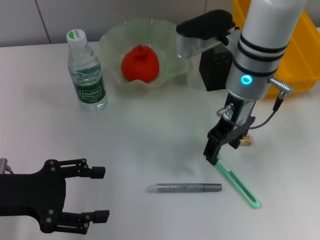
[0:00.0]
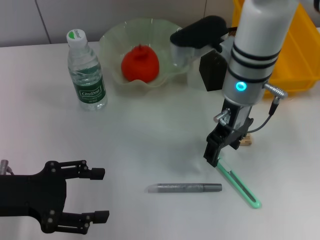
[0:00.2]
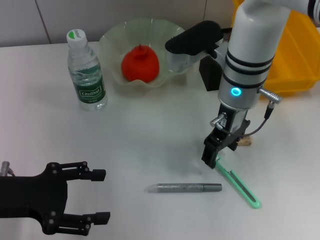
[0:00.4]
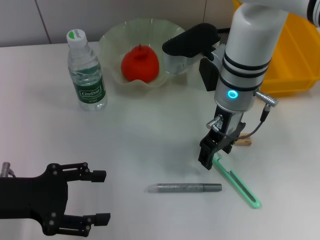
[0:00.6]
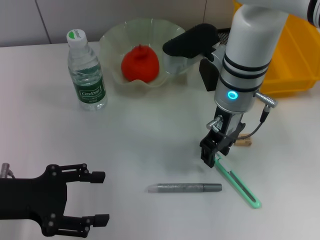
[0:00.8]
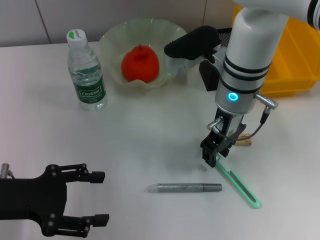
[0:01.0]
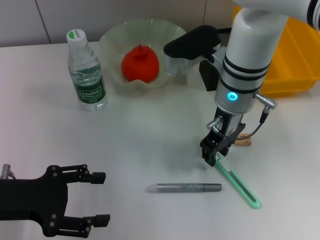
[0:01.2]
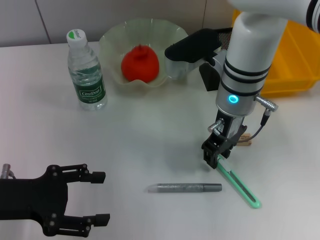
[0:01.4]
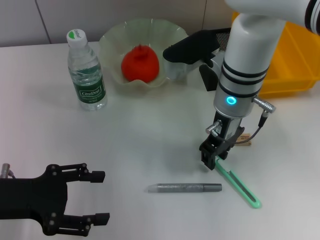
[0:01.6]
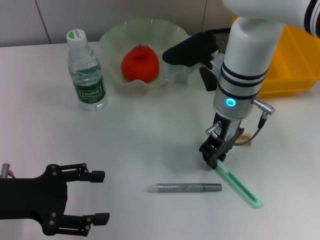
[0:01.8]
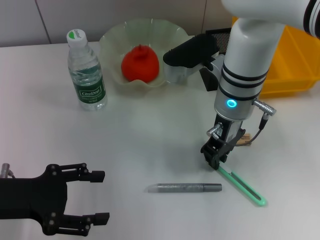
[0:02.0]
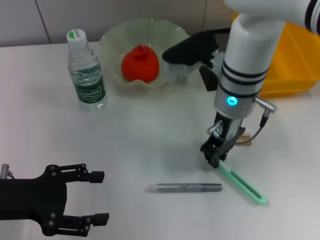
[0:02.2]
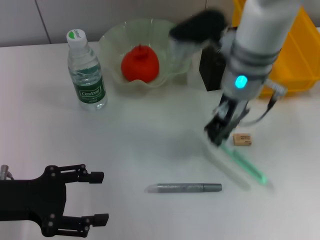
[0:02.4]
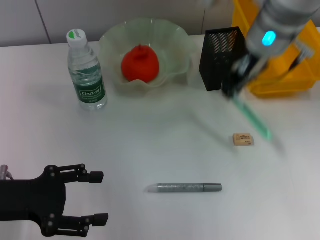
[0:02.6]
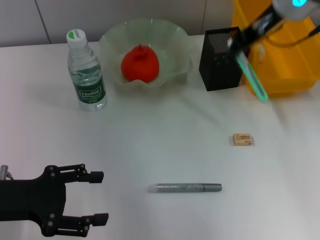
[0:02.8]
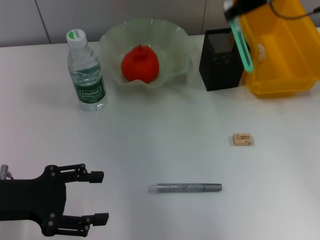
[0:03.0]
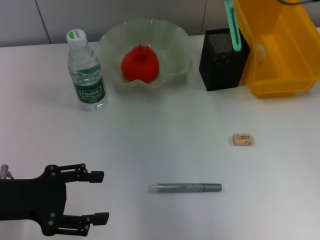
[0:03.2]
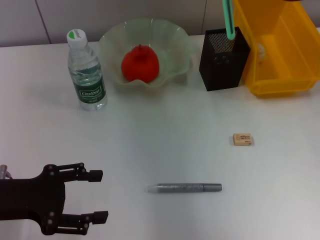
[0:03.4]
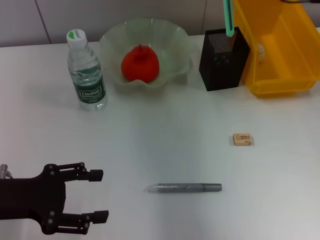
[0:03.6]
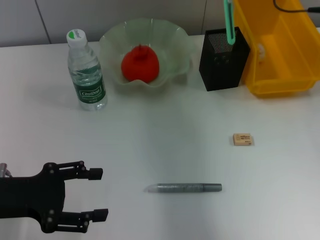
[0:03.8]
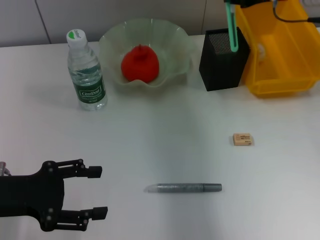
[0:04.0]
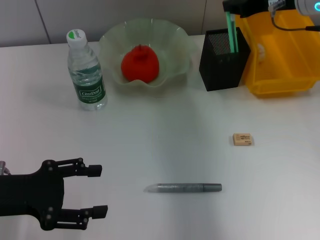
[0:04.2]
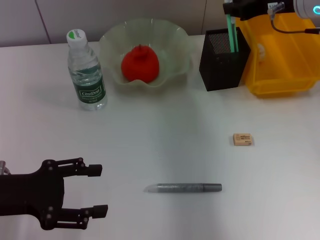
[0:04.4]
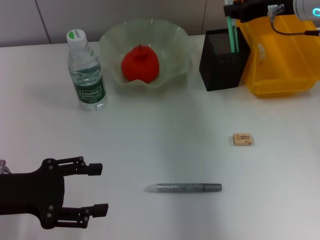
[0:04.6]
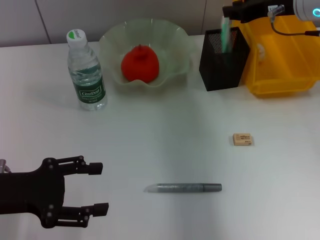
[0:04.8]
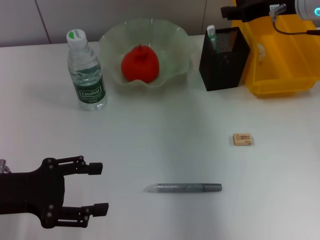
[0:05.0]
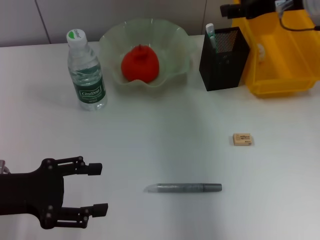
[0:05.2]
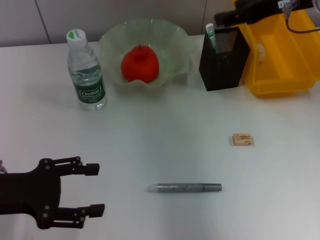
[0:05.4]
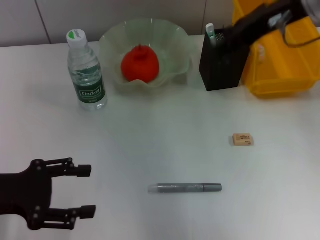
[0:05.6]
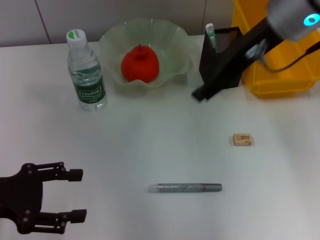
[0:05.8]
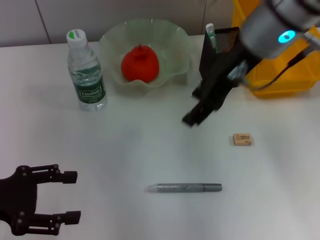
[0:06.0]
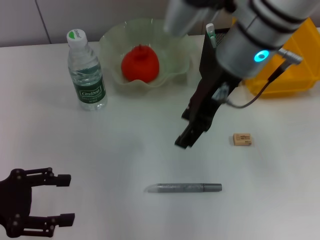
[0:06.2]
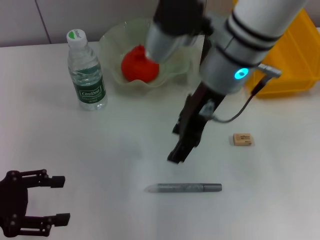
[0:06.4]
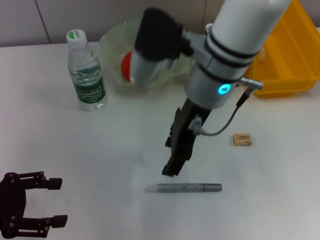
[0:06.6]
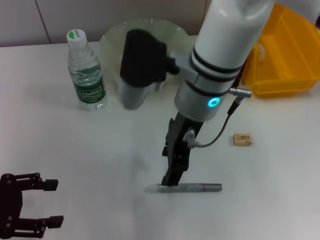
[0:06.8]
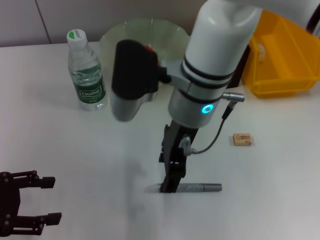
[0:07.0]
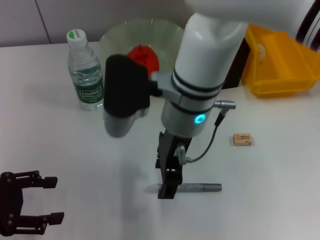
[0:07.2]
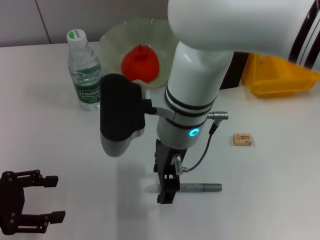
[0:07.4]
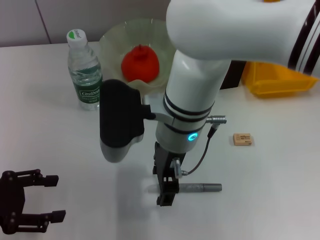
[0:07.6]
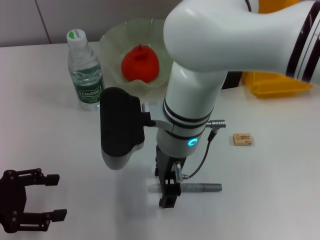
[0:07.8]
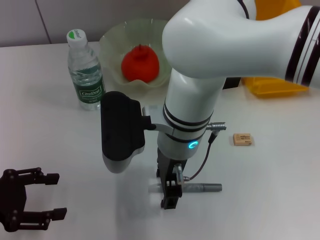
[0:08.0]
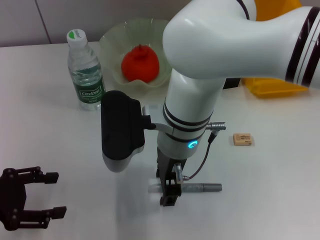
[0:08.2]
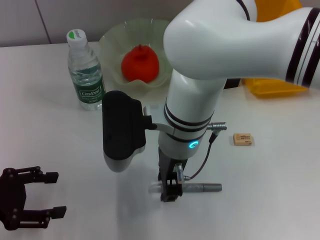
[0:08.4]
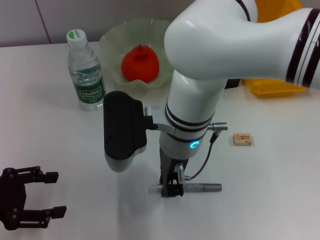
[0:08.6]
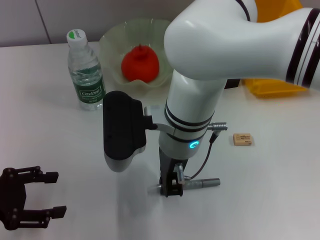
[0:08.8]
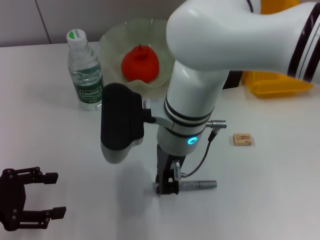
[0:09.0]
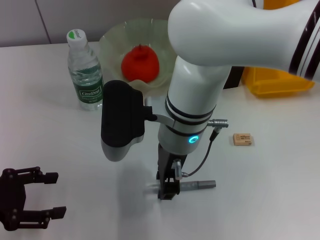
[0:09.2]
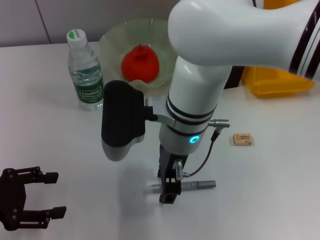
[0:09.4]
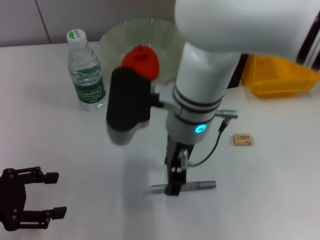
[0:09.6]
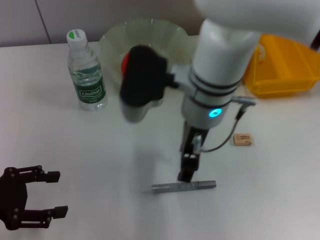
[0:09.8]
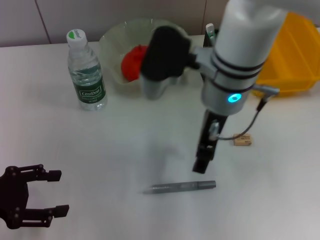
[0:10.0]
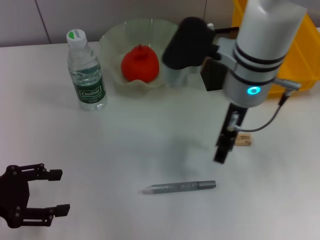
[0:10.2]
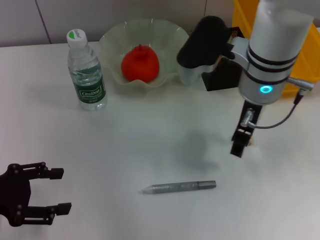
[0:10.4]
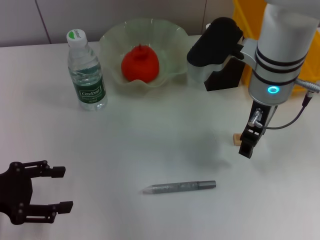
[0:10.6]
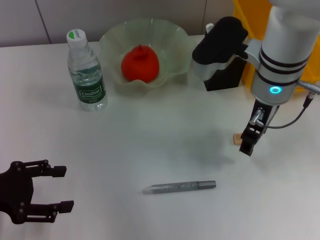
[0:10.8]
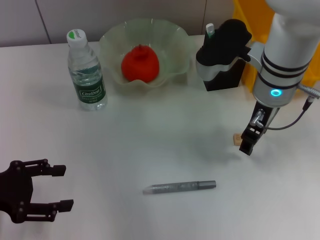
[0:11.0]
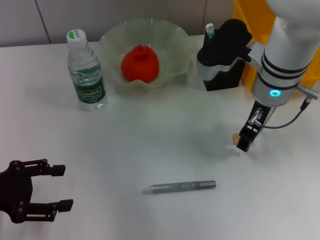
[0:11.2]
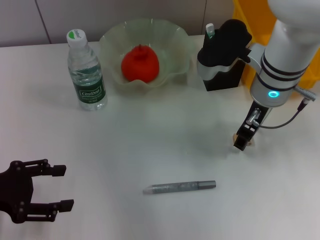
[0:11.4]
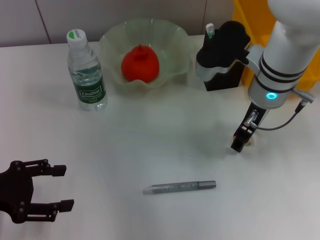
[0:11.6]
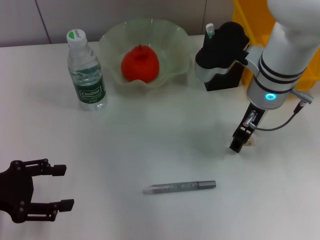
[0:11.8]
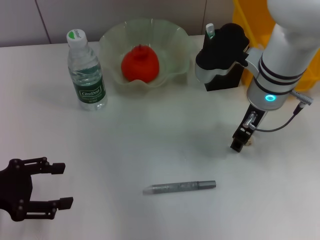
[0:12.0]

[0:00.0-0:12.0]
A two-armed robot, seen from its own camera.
Step, 0:00.0 to 0:02.0: Grab the blue utility knife with the right hand.
Step, 0:02.2 to 0:05.0: Place the blue utility knife into the pen holder with the right hand.
0:00.0 to 0:01.6: The right gripper closes up.
0:01.6 to 0:03.0: The right gripper heads upward and to the right, covering some 15 cm.
0:03.0 to 0:04.4: The right gripper goes about 5 cm downward.
0:04.4 to 0:06.0: The right gripper is displaced to the left and backward by some 15 cm, and opens up.
0:06.0 to 0:07.6: The right gripper moves to the left and downward, some 15 cm.
0:07.6 to 0:09.0: The right gripper closes its fingers.
0:09.0 to 0:10.4: The right gripper moves to the right, some 10 cm, and opens up.
0:10.4 to 0:12.0: The grippers move only a little.

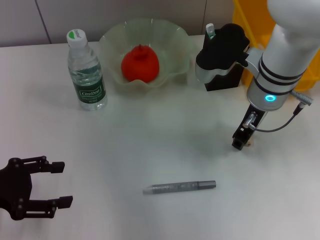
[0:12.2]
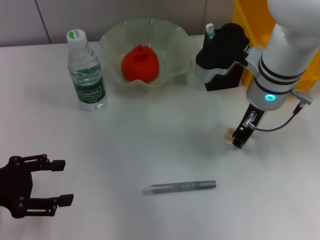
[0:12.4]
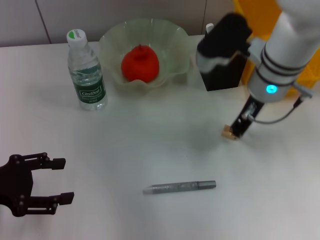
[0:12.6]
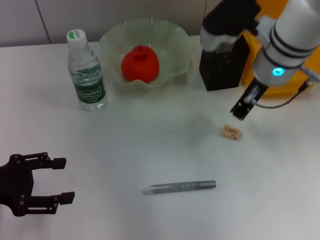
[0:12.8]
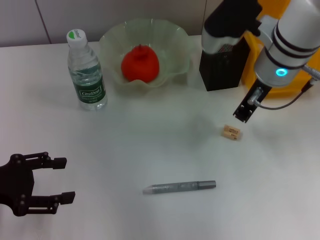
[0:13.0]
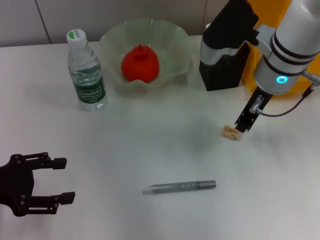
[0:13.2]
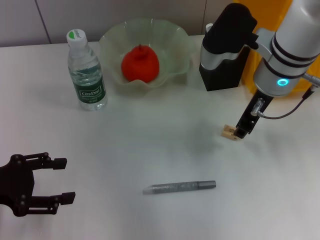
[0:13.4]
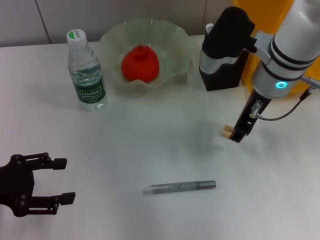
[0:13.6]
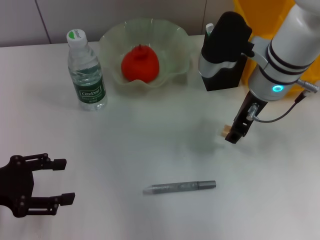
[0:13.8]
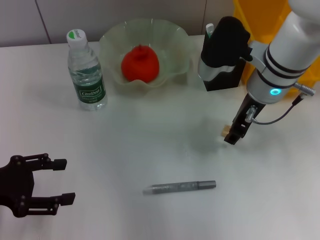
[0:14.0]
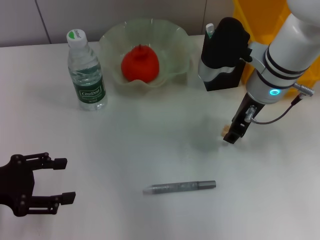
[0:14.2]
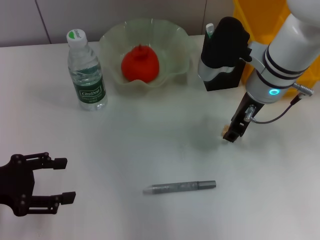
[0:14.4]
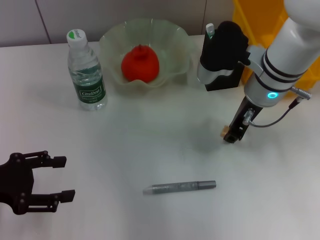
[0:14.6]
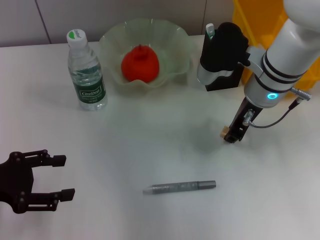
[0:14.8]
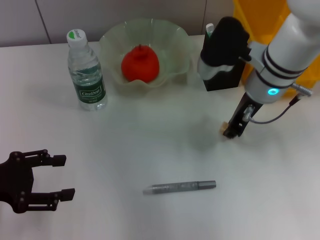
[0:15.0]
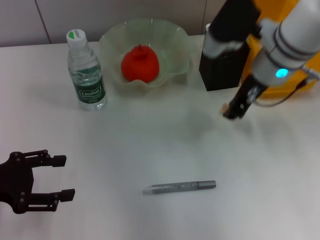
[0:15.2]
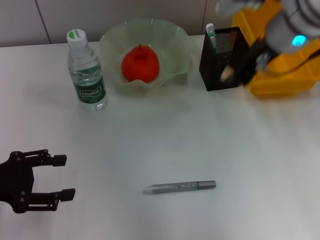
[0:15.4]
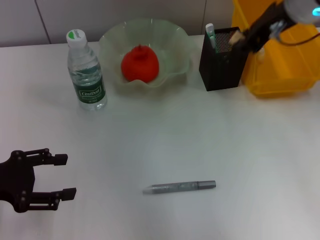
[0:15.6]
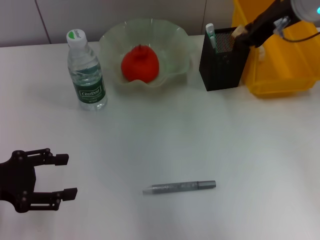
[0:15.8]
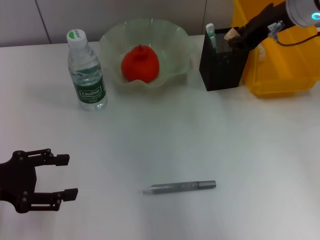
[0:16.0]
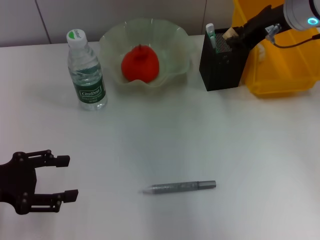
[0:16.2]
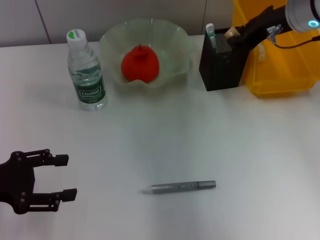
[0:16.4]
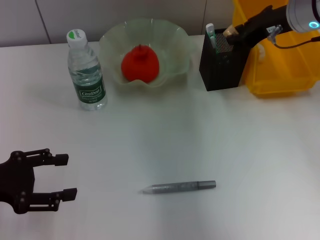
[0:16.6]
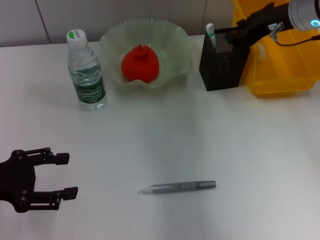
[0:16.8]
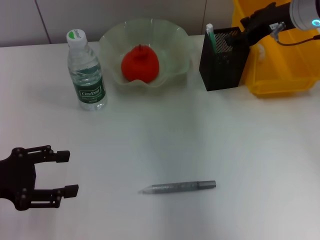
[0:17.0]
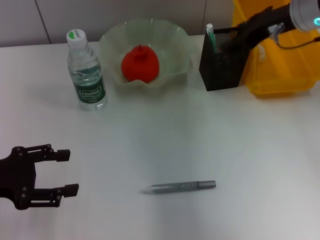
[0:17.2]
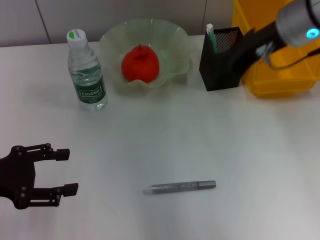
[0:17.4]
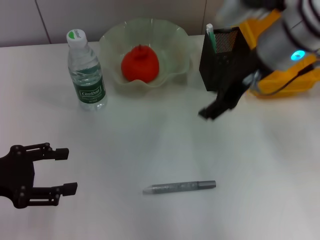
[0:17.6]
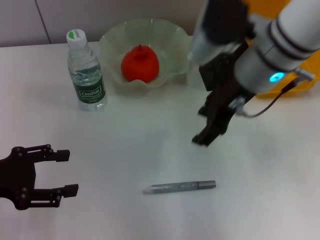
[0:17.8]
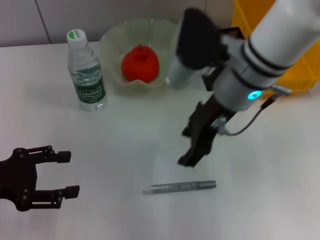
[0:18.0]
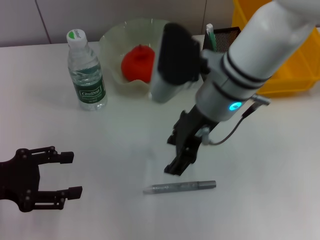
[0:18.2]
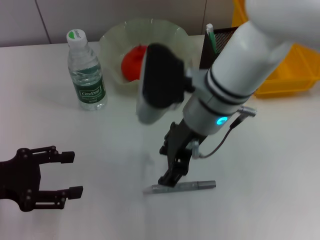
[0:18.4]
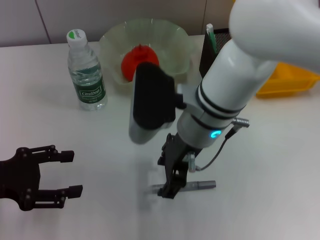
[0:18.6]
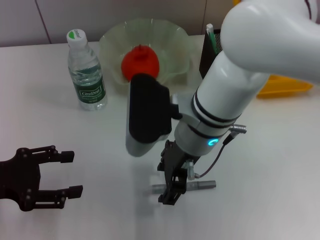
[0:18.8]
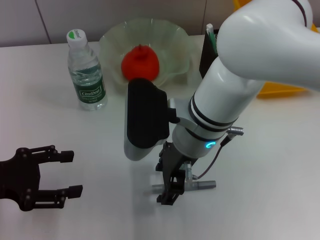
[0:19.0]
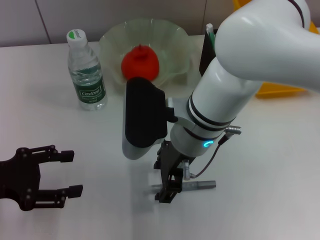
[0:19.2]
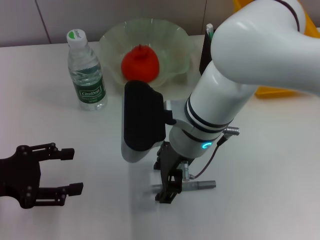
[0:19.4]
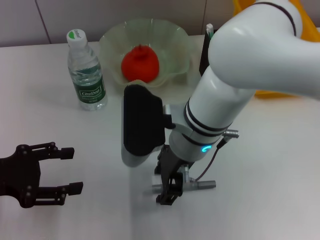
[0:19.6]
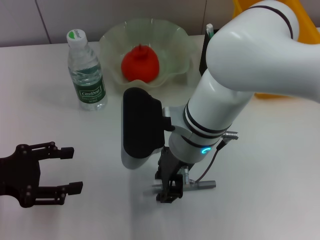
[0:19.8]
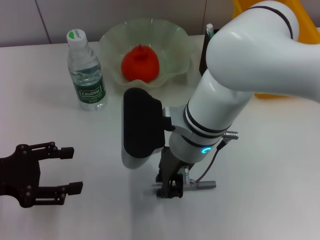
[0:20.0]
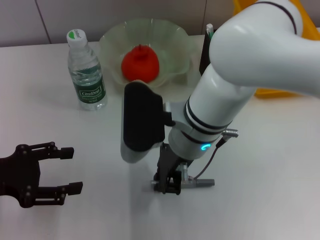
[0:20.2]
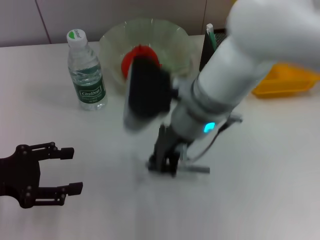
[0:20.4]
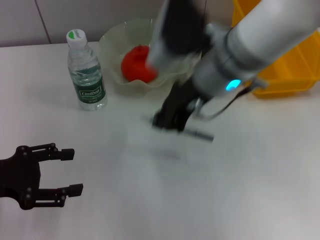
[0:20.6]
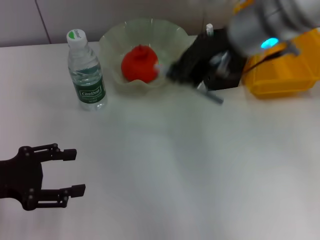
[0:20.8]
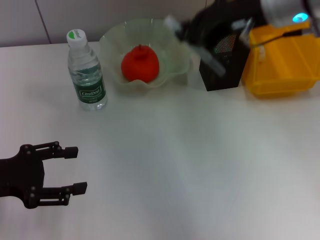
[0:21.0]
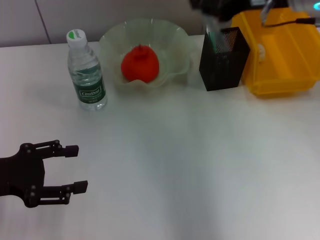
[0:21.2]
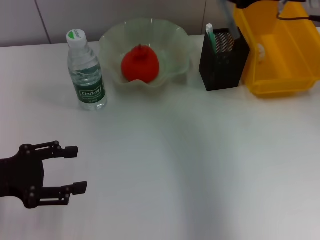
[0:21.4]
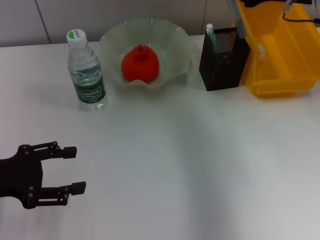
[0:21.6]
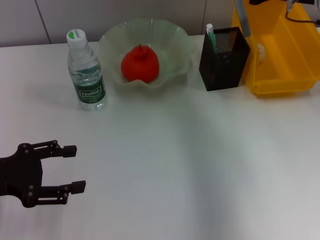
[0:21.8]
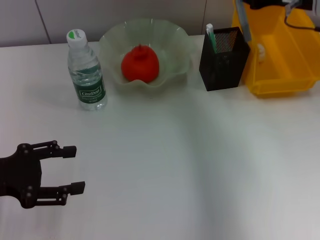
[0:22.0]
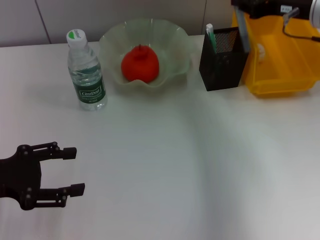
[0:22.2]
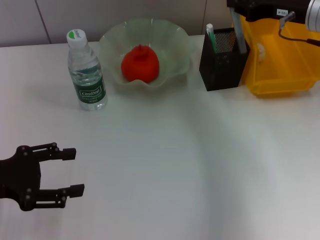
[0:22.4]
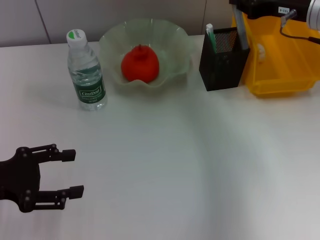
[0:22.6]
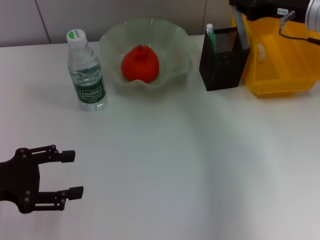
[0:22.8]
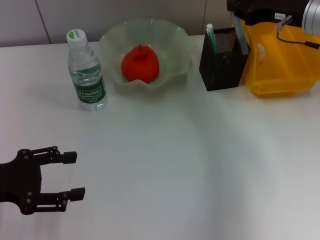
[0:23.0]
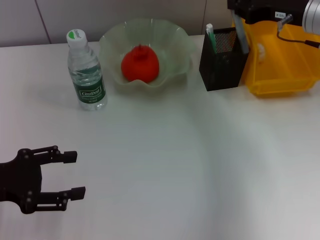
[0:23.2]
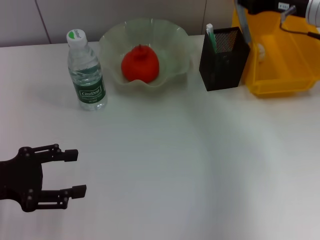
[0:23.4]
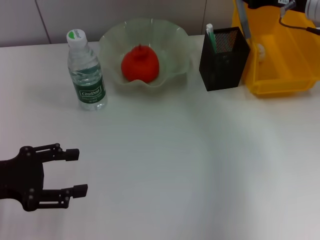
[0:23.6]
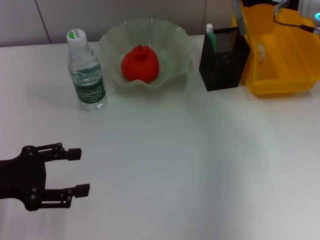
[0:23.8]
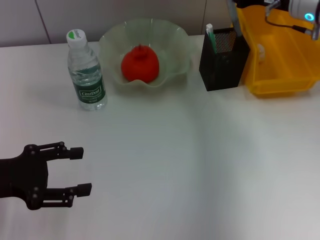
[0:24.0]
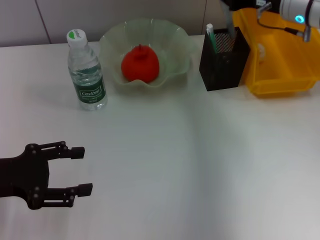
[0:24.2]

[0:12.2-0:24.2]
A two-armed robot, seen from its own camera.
Step, 0:12.2 to 0:14.6: Grab the eraser with the right hand.
Step, 0:14.8 to 0:17.6: Put the eraser into the pen holder with the right hand.
Step, 0:17.8 to 0:20.4: Grab the gray glue with the right hand.
0:12.2 to 0:13.8: The right gripper closes and opens again.
0:13.8 to 0:15.2: The grippers stay close to where they were, moving slightly.
0:15.2 to 0:16.6: The right gripper moves to the right, about 5 cm, and travels upward and back again, some 10 cm each way.
0:16.6 to 0:18.2: The right gripper travels to the left and backward by about 15 cm, and opens up.
0:18.2 to 0:19.8: The right gripper changes place by some 5 cm.
0:19.8 to 0:21.2: The right gripper heads to the right, upward and forward, covering approximately 20 cm, and closes its fingers.
0:21.2 to 0:22.6: The right gripper goes about 10 cm downward and to the right.
0:22.6 to 0:24.2: The grippers move only a little.
